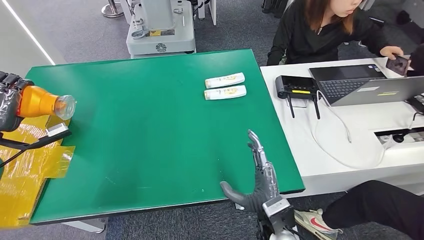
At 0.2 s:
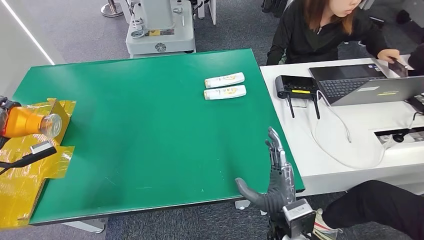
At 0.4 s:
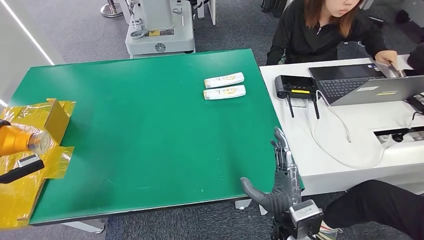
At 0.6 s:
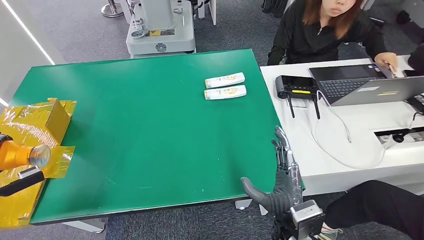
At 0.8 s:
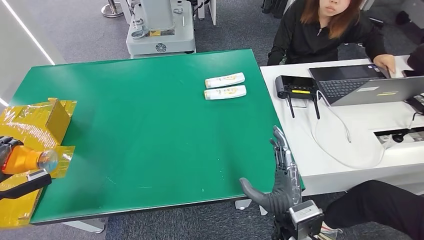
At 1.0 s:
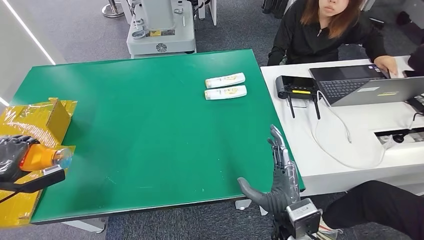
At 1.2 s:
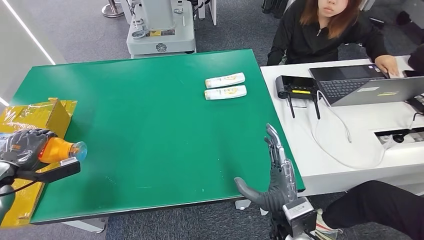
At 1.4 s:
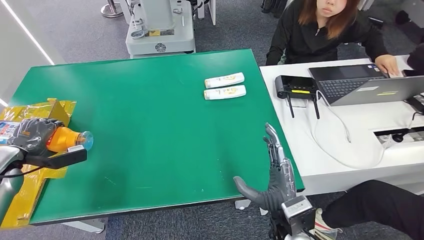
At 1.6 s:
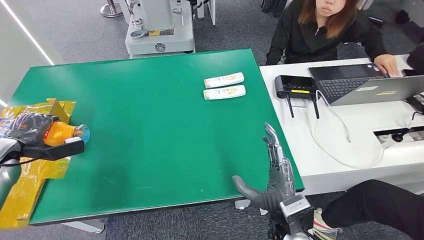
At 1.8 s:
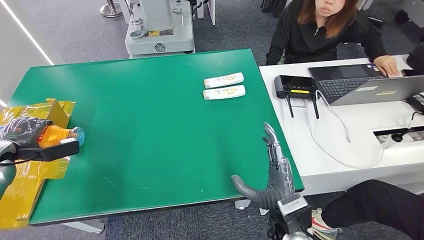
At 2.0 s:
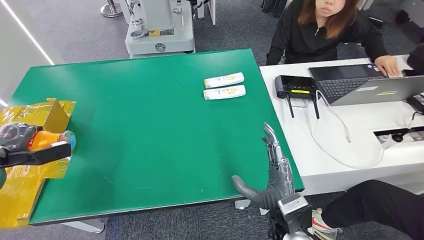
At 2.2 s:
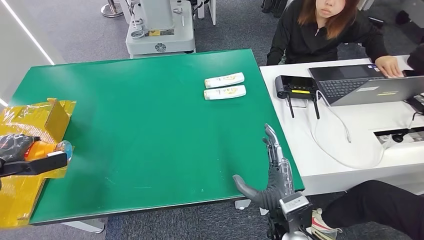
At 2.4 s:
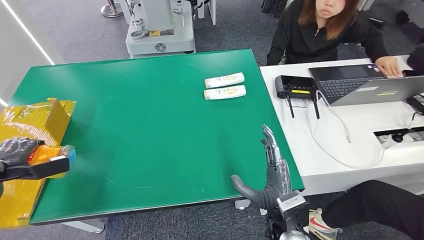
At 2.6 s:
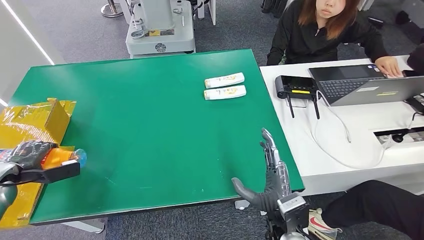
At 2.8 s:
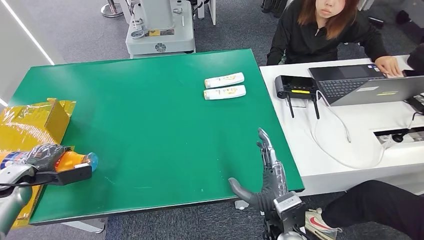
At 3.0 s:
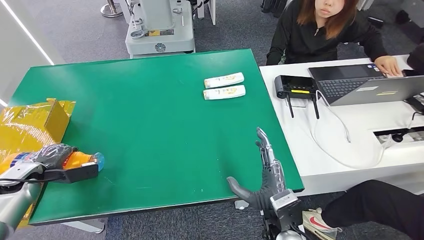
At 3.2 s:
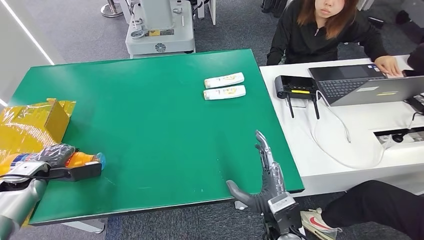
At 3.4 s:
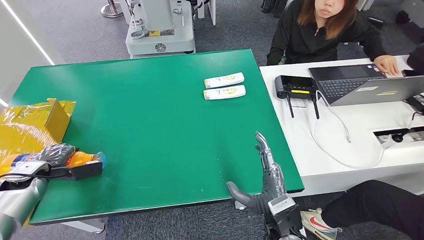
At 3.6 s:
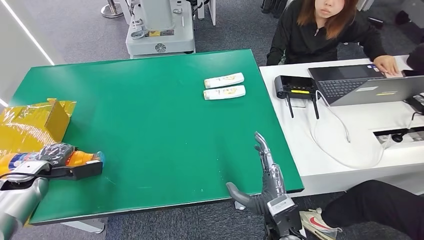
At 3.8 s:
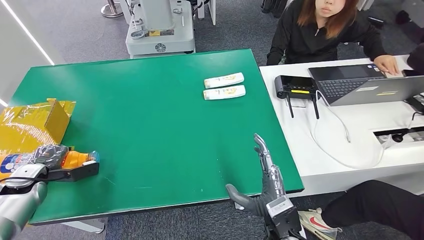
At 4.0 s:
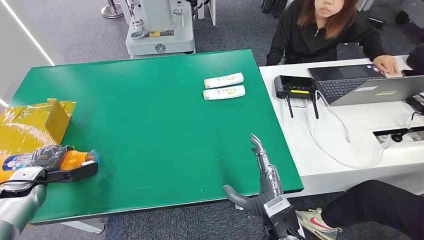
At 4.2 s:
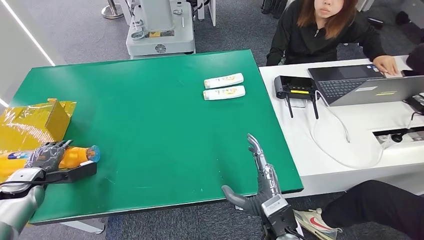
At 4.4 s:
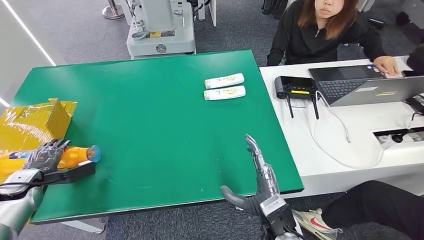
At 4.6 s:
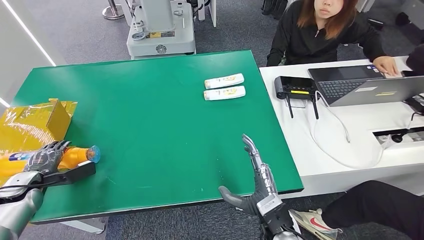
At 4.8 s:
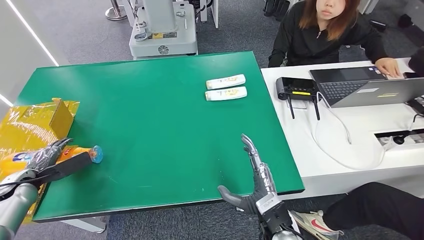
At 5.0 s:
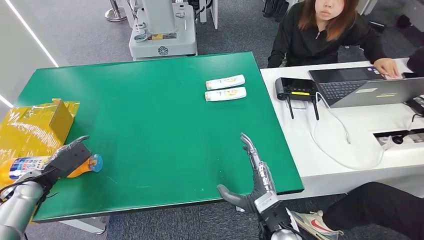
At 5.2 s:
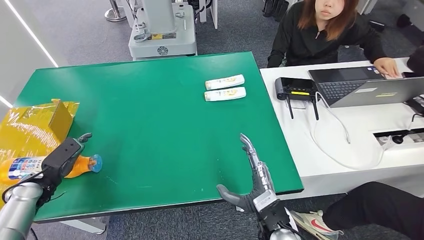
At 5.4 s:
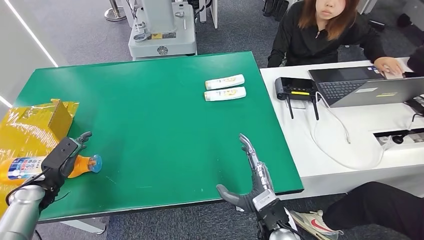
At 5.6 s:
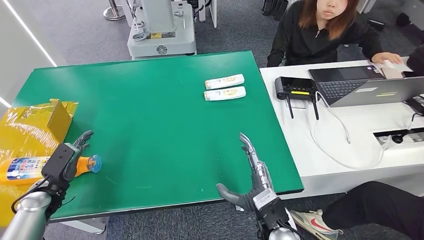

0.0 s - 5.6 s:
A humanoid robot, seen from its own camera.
Step, 0.0 s - 5.6 s: Turn the bottle to the front side.
0.0 s - 1.4 s: The left hand shifts about 10 cm downward.
1.4 s - 2.8 s: The left hand is displaced downward by some 5 cm.
2.8 s - 4.2 s: There are only small adjustments of the hands.
4.2 s - 5.6 s: The left hand goes roughly 5 cm to the right.
